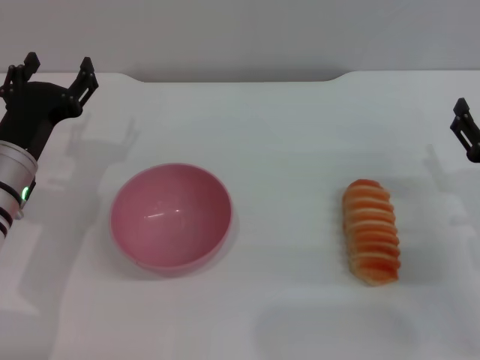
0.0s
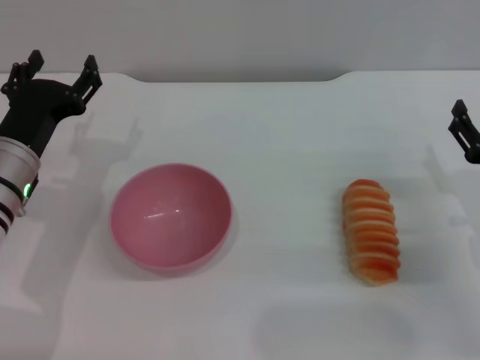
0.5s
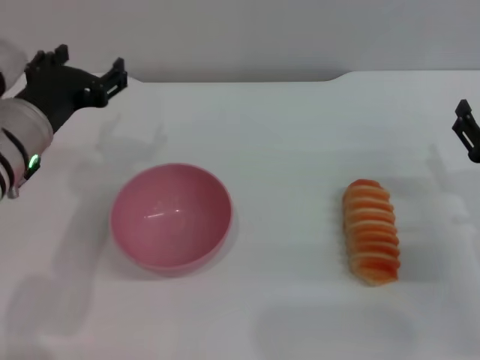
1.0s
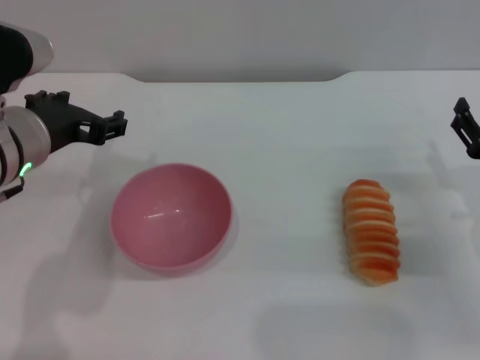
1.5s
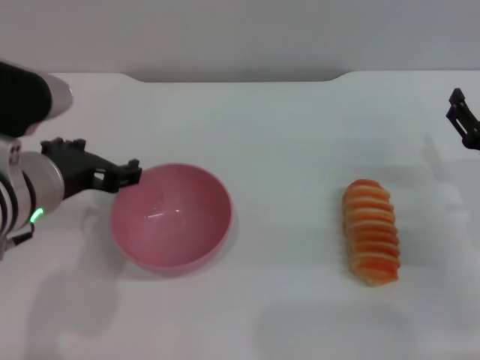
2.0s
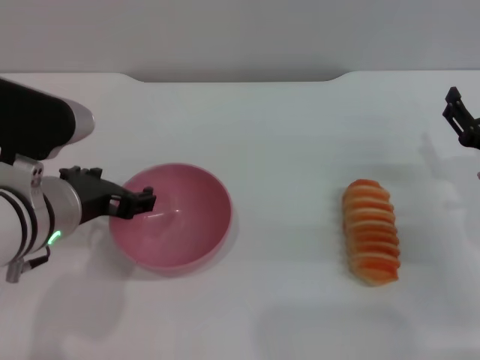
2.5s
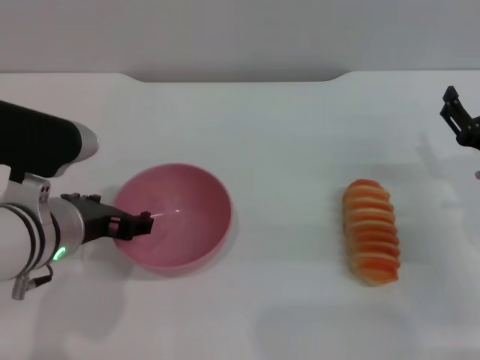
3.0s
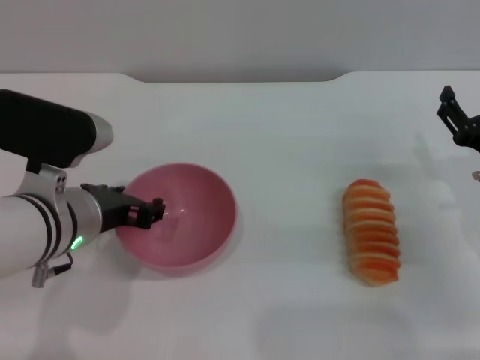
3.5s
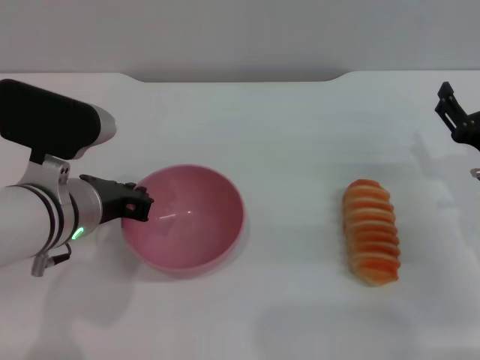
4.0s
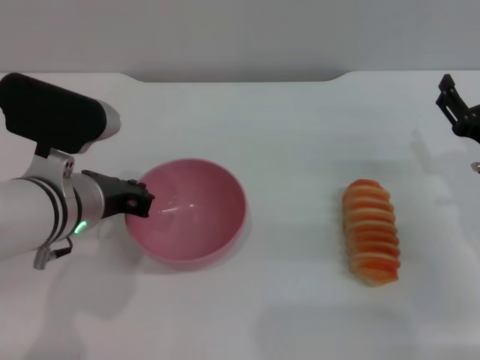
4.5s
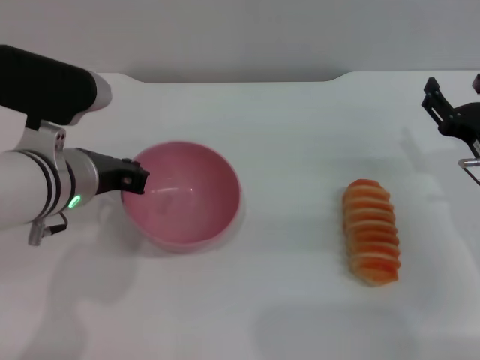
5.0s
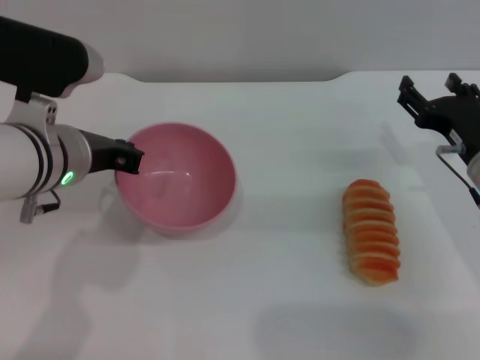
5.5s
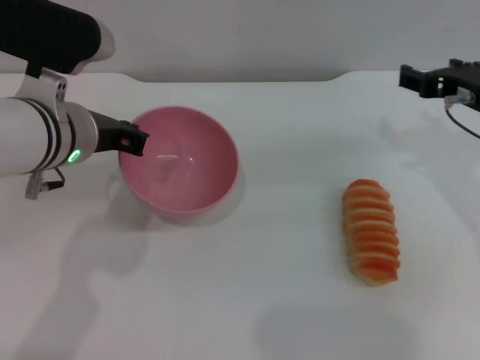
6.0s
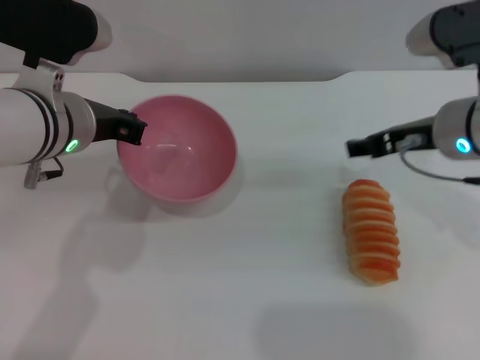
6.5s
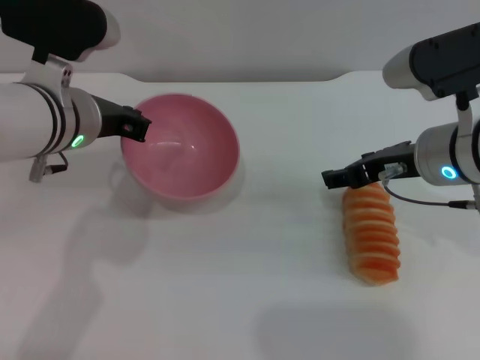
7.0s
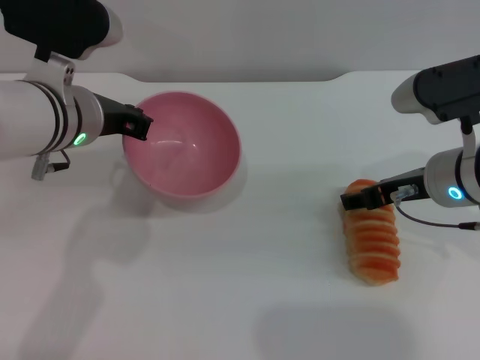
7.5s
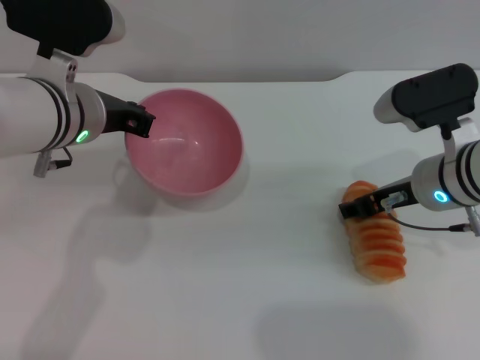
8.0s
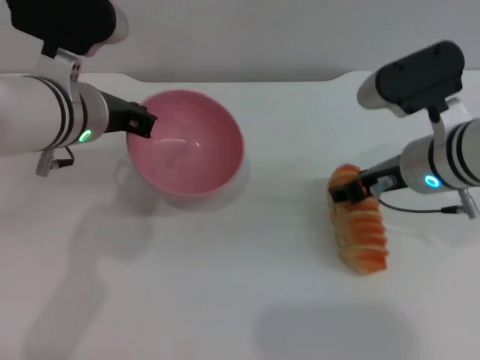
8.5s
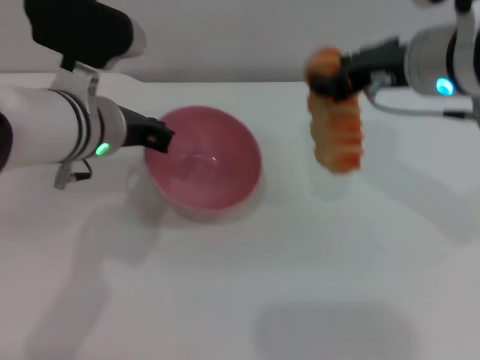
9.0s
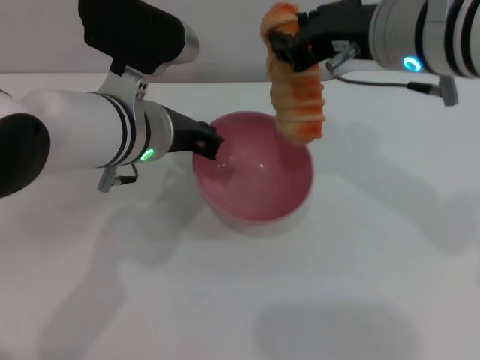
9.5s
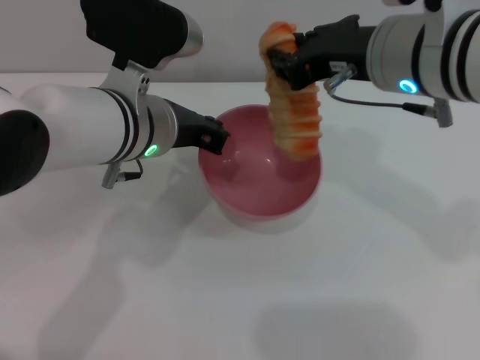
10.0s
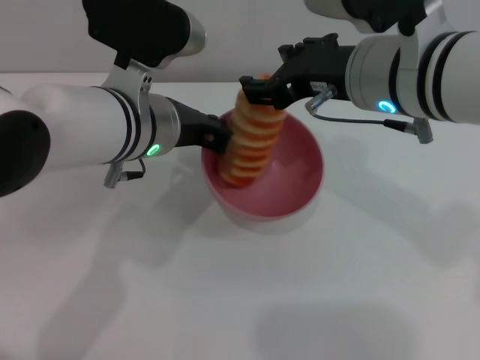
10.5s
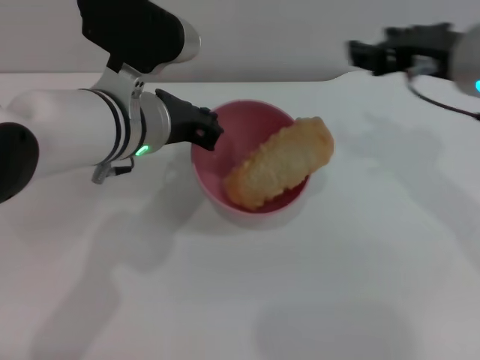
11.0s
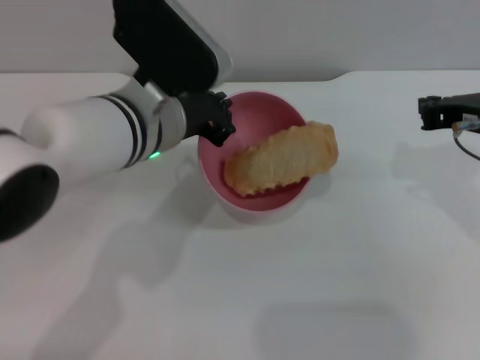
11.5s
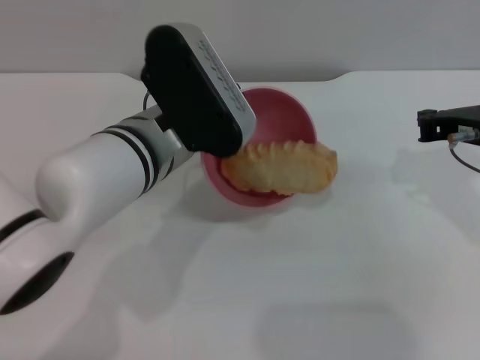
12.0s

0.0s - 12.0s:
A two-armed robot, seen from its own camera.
Task of the whole recording: put the bread into the pink bowl and pour it out repeatedly.
Step, 0.0s - 6.0s: Pick up the bowl with the left gripper.
Step, 6.5s - 8.5s: Pick up the bread with the right gripper.
Step, 9.0s - 10.5s: Place the bread into the bowl.
0.0s - 2.0s: The left gripper heads upward and to the right, covering some 10 cm.
2.0s - 4.0s: The left gripper closes.
4.0s - 6.0s: The left gripper moves about 5 cm, while the right gripper goes approximately 10 cm upward and forward.
6.0s - 8.0s: The right gripper goes some 5 cm downward.
8.0s - 10.0s: The right gripper heads upward and to the left, covering roughly 15 cm, and closes up. The left gripper is displaced to the right by approximately 5 cm.
10.0s - 12.0s: The right gripper is displaced to the right and downward by about 15 cm, and closes up.

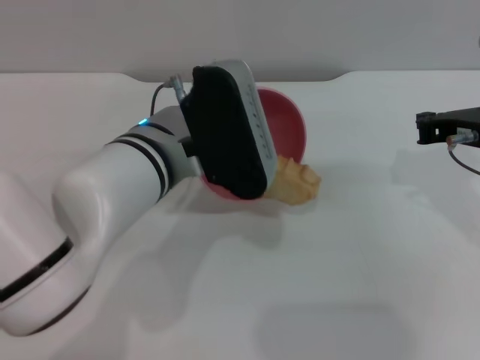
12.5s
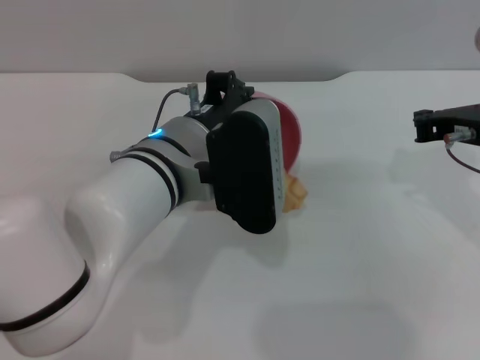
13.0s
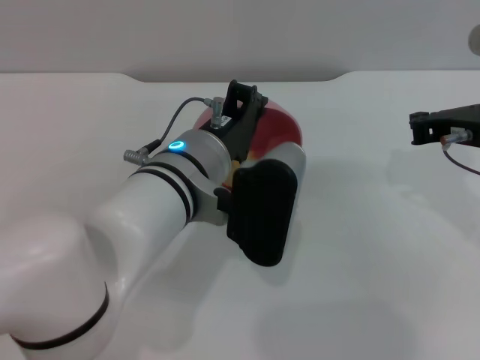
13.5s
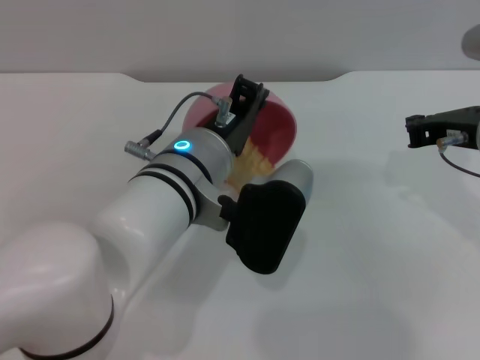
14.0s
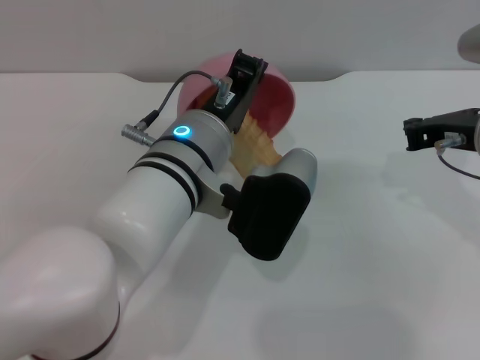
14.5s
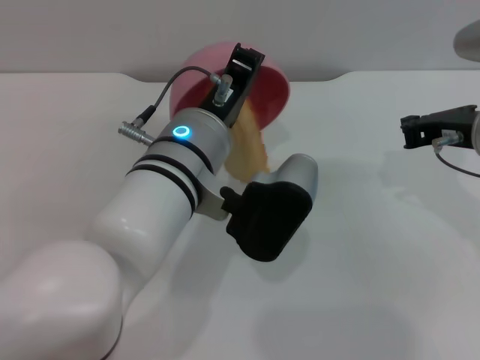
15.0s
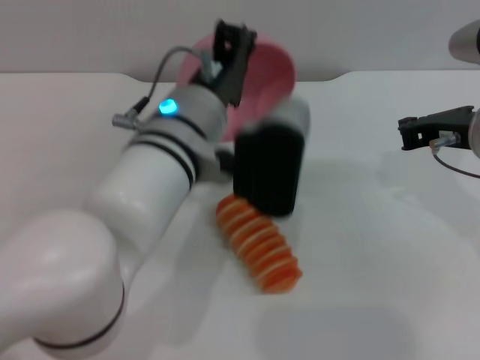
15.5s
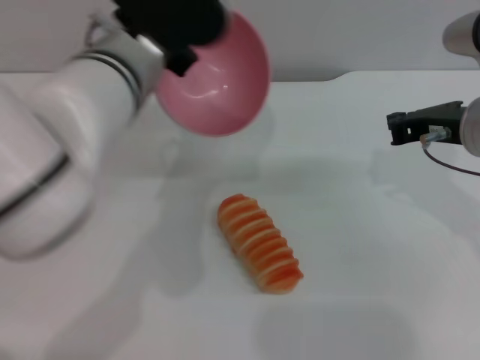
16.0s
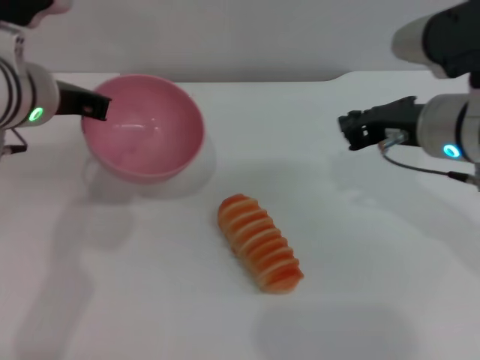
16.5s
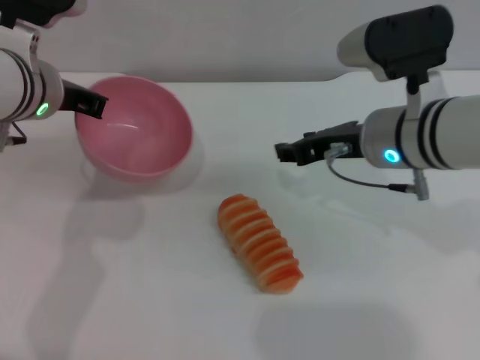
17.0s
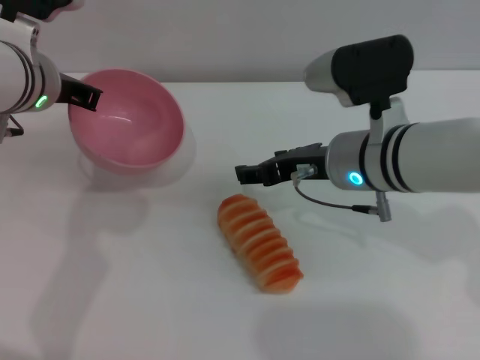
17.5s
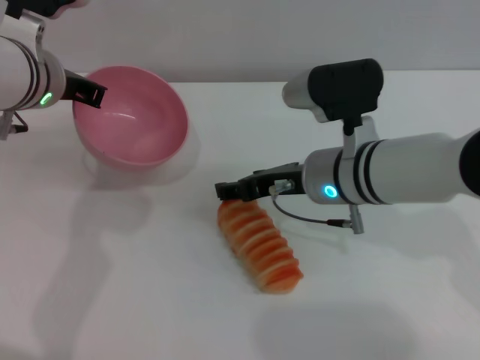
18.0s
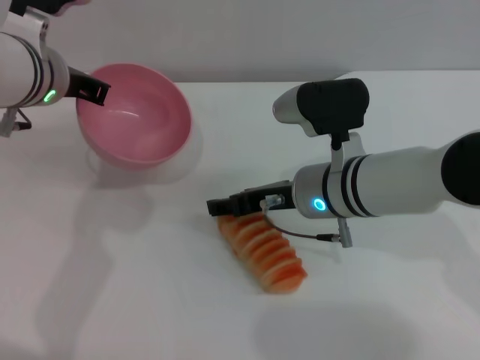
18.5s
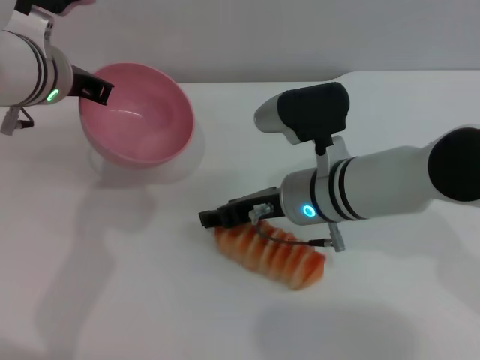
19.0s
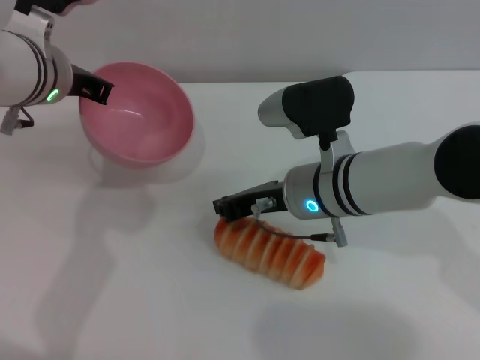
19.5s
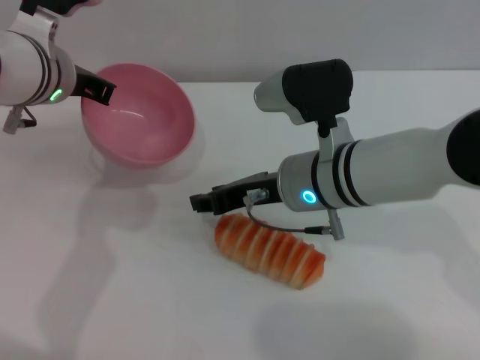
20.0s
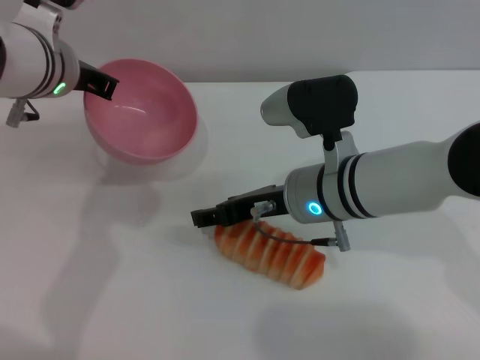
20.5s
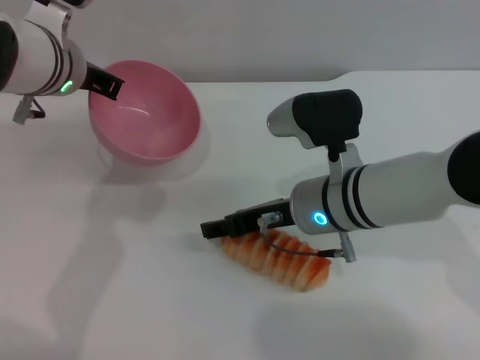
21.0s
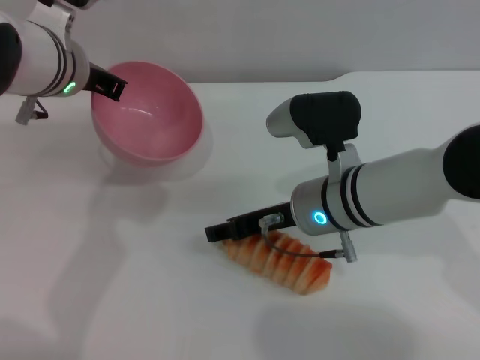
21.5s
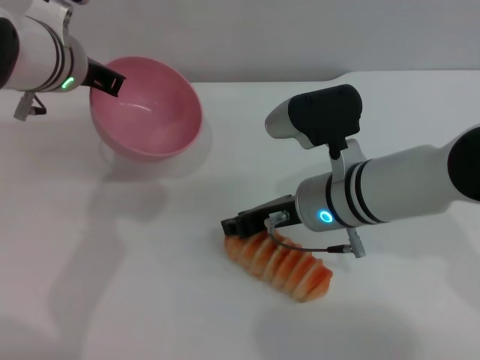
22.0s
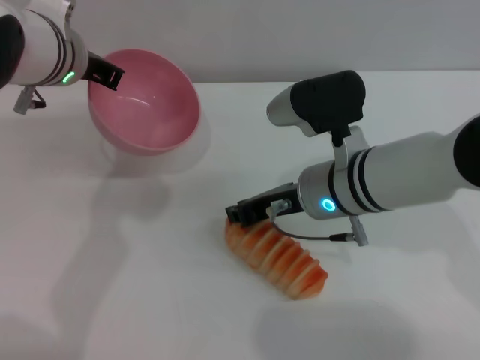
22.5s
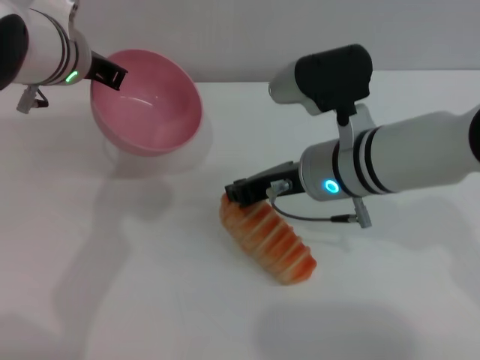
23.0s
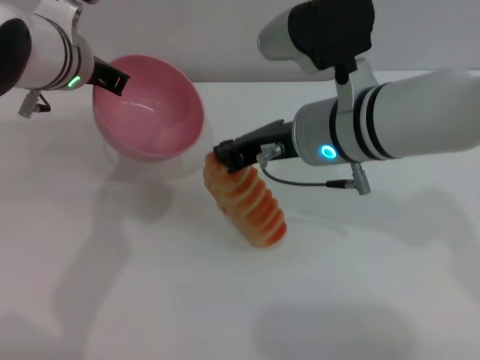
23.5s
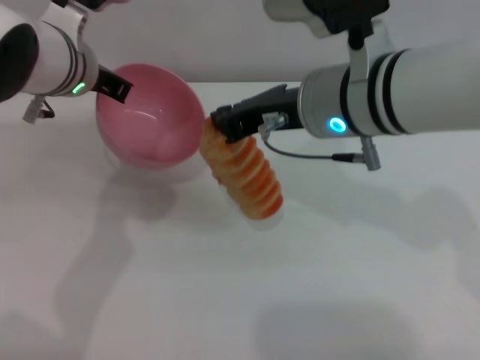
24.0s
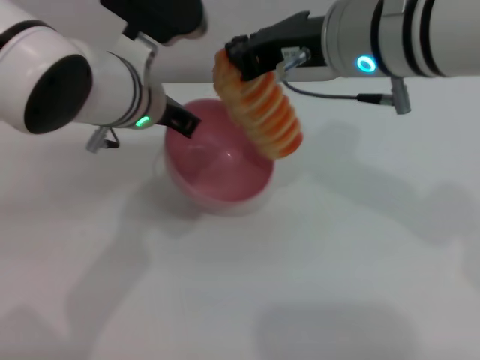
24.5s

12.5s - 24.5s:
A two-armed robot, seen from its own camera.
Task of the whole recording: put the bread into the pink bowl and pour it out repeatedly.
Step, 12.5s - 15.5s: Pour the bread out of the bowl.
Step, 16.0s - 24.0s: Pick up the bread with the right gripper.
14.5s - 16.5s: The left gripper moves to the left and forward, about 15 cm.
16.5s - 18.5s: The right gripper is displaced downward and to the left by roughly 10 cm, and opens its fingers.
18.5s - 20.5s: The right gripper closes, then reopens.
20.5s - 22.5s: The right gripper closes its fingers.
22.5s - 24.5s: The left gripper goes roughly 5 cm to the right. Meanwhile the right gripper is displaced upward by some 15 cm.

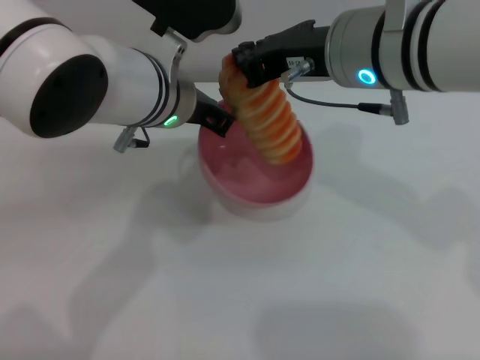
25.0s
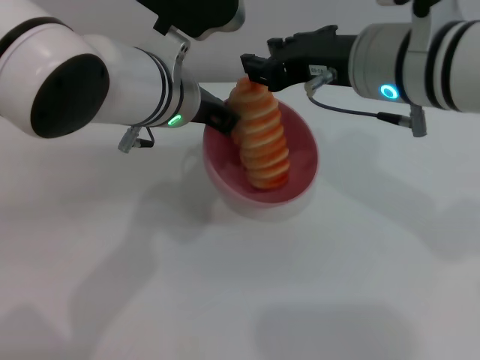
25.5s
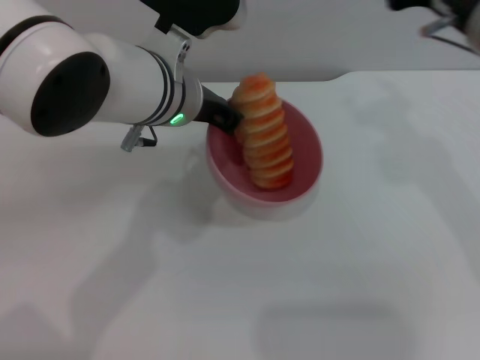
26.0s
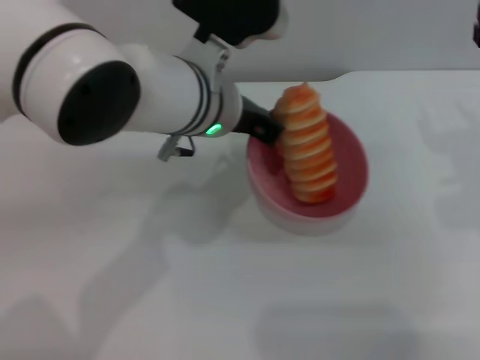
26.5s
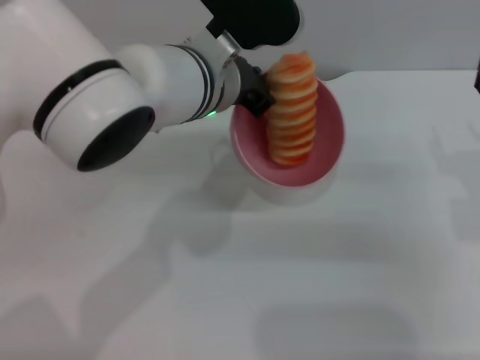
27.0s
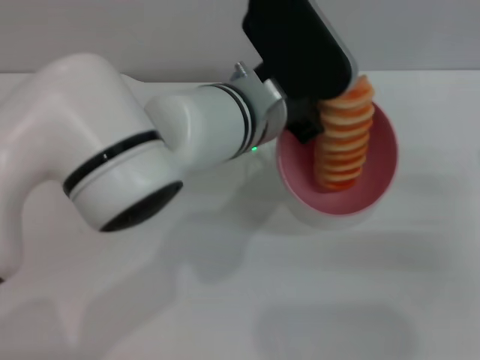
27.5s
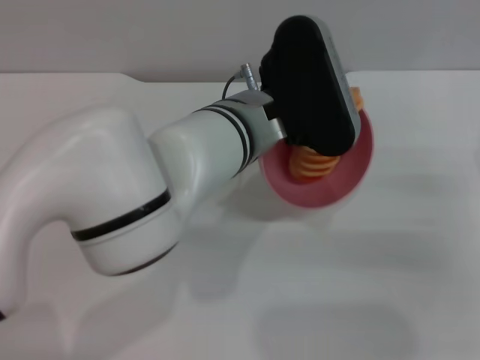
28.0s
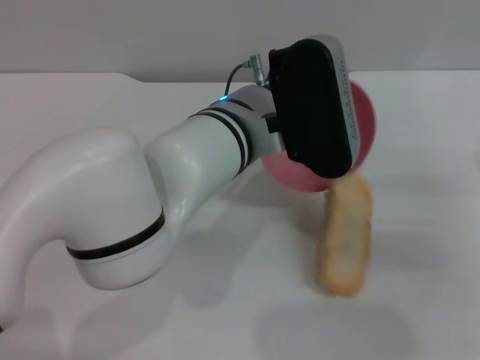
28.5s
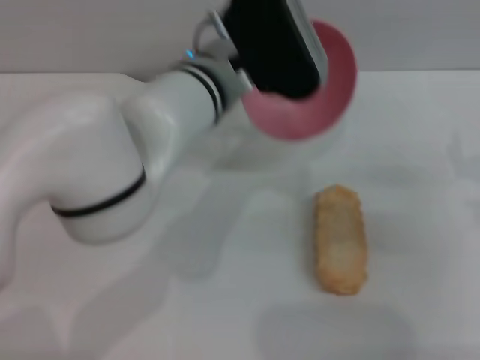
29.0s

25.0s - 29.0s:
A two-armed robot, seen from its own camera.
Task of the whole recording: put the bread into the pink bowl and pour it out repeatedly.
25.0s - 27.0s: The right gripper moves to the right and downward, approximately 20 cm, and opens up.
